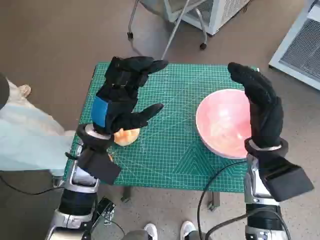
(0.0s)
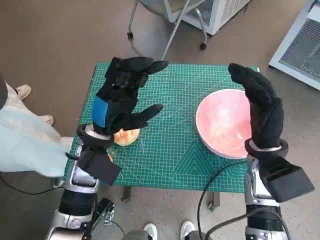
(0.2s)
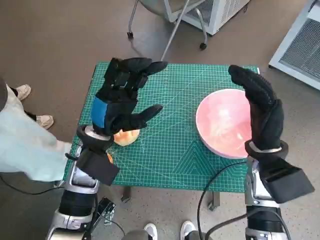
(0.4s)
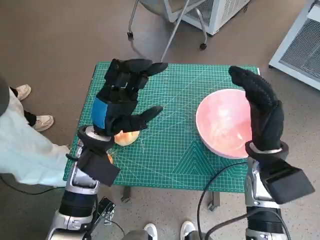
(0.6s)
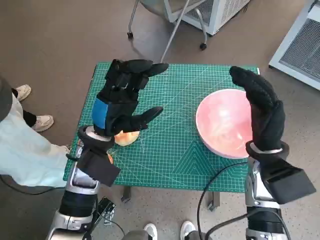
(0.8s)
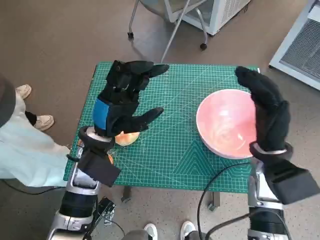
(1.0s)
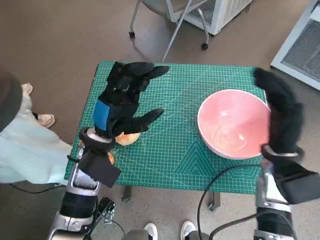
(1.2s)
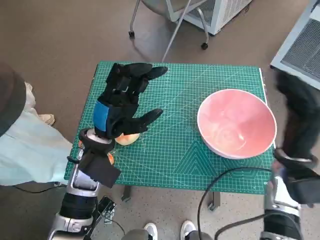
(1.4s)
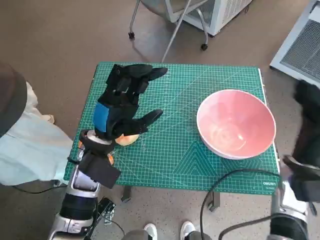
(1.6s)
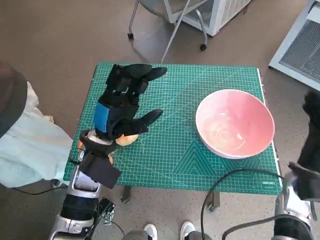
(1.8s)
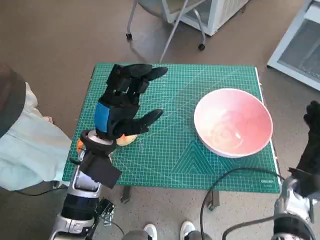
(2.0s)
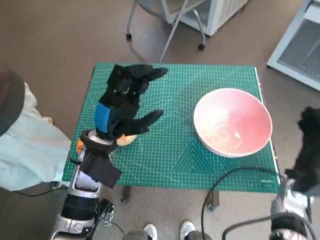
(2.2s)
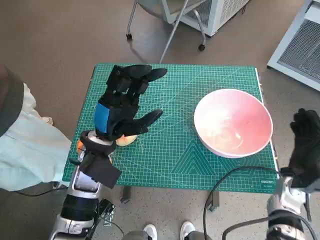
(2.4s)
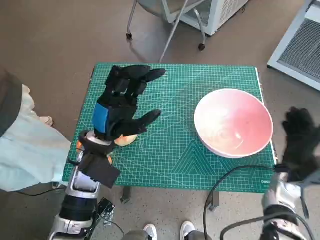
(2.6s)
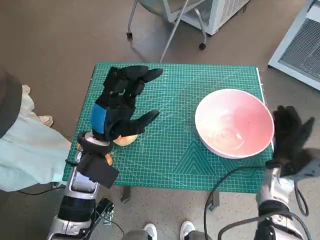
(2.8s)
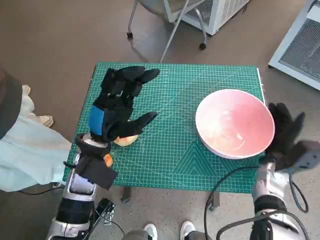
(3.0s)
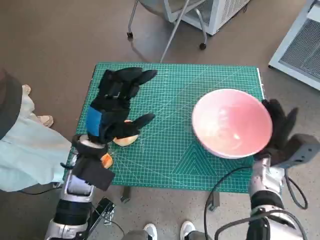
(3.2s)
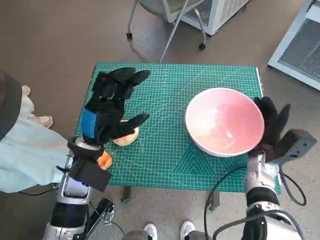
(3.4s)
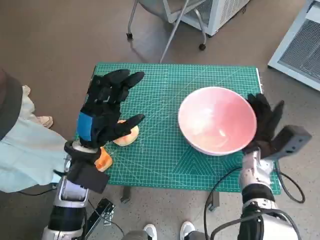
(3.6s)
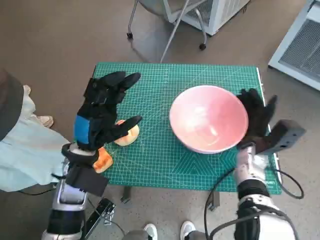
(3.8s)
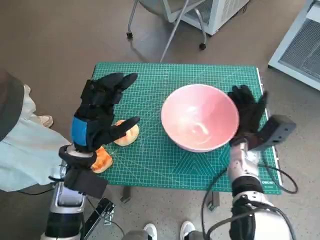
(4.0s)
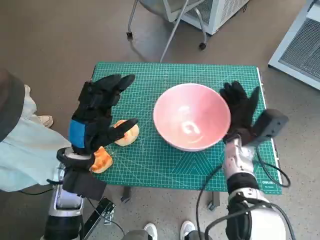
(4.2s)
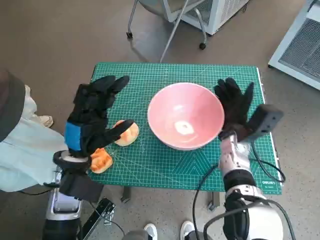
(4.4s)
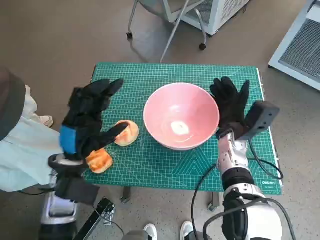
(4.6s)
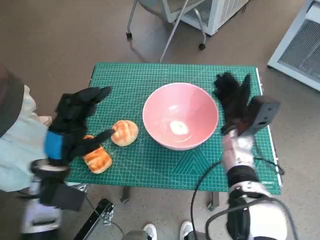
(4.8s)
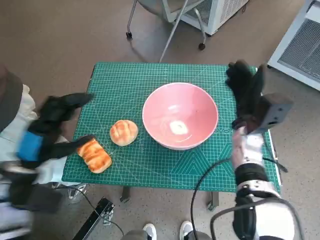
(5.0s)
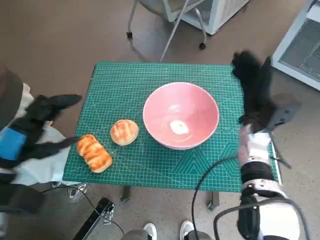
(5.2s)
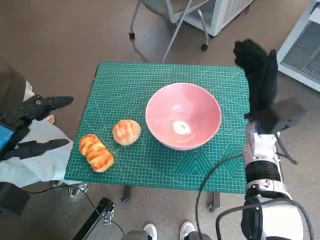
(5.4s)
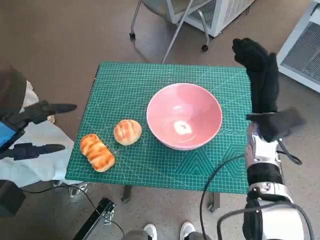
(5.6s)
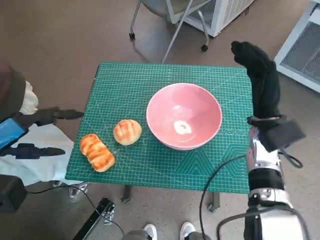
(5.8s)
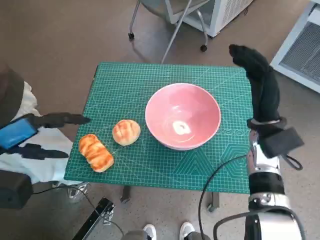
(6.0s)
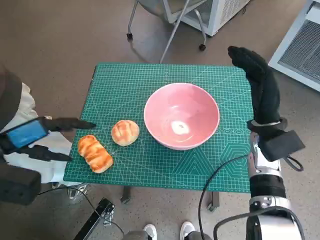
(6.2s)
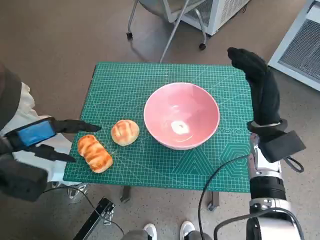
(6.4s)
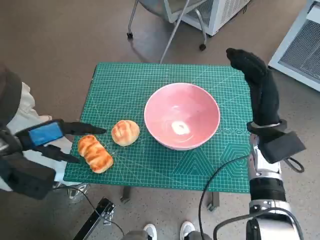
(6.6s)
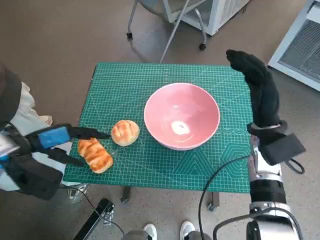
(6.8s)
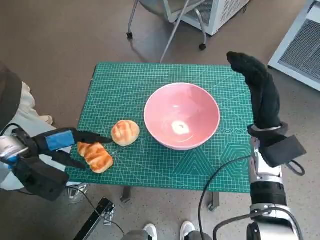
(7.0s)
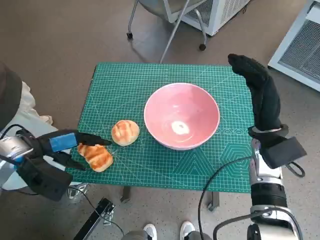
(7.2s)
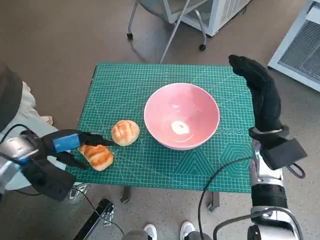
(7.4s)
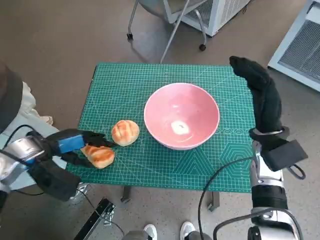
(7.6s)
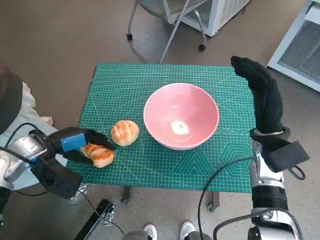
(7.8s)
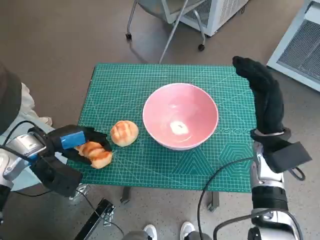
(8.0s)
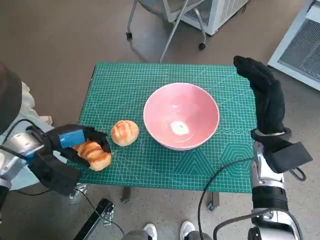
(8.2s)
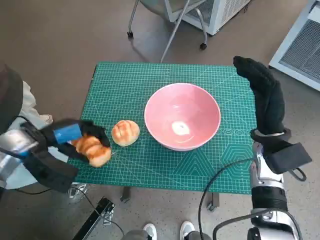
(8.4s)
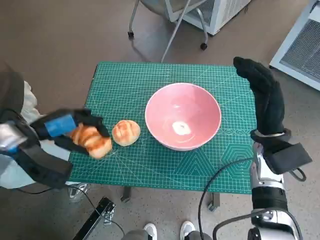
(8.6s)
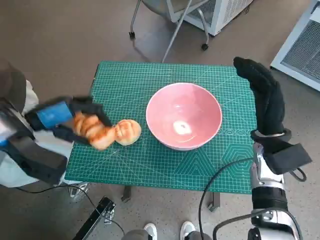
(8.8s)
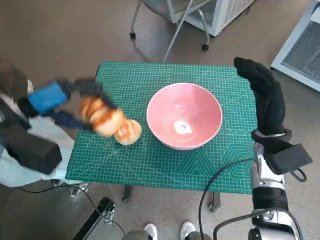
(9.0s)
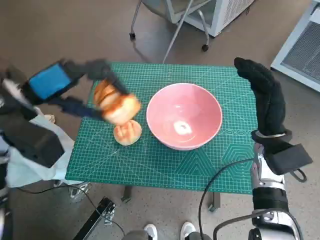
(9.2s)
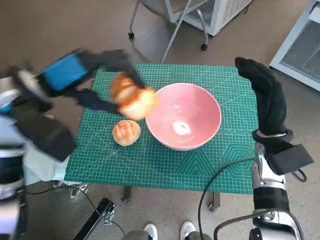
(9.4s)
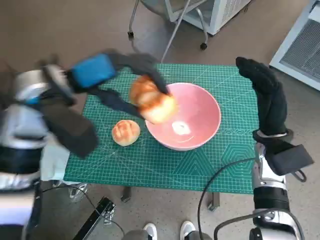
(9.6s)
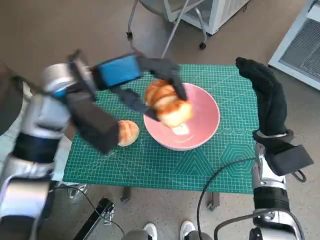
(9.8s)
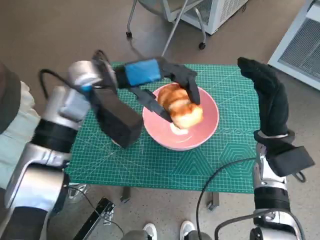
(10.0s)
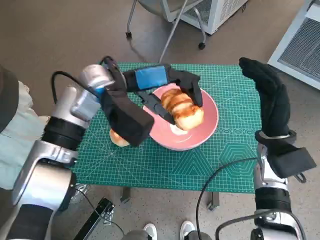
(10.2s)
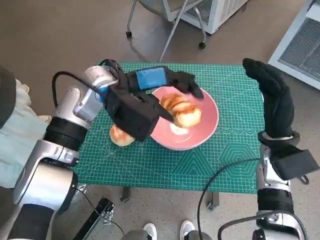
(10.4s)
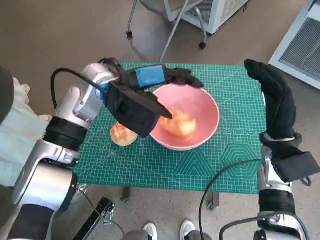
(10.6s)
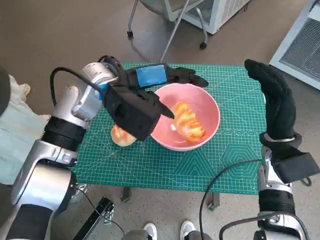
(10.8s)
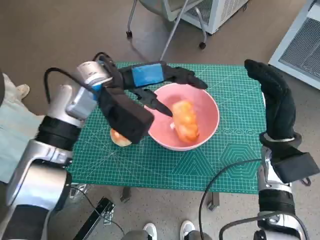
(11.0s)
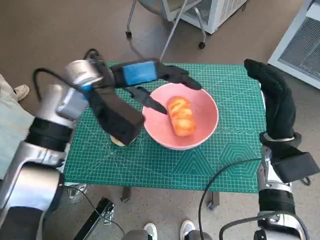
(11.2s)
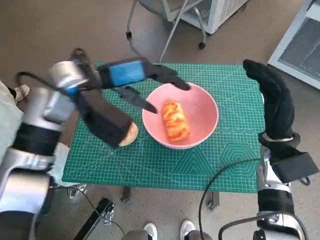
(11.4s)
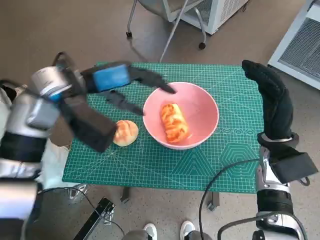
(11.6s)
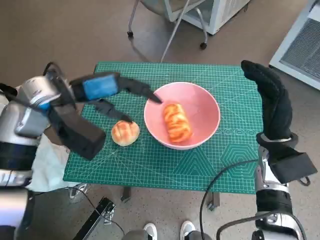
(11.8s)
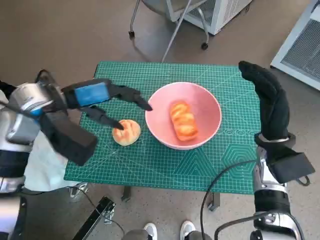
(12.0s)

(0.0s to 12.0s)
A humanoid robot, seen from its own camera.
Task of the whole recording: Push the bowl to the center of the table and put the bread into the bowl.
Step, 0.0s - 4.8s: Move the pink bowl to the center of table with right hand.
Step, 5.0s - 7.8s: Grasp the long bread with left hand.
Step, 8.0s - 11.2s: Place the long bread in pink bowl with left hand.
1.6s - 3.0s: The right hand goes about 5 cm downward.
3.0s - 4.4s: The right hand travels to the left by some 10 cm.
4.4s - 6.0s: The left hand shifts roughly 15 cm to the left and upward; the right hand goes approximately 5 cm upward.
6.0s - 7.6s: The left hand shifts some 10 cm downward and forward.
7.6s - 9.0s: The left hand shifts approximately 10 cm upward.
9.0s - 10.4s: The left hand goes roughly 15 cm to the right and forward.
10.4s - 12.0s: The left hand goes approximately 10 cm to the left.

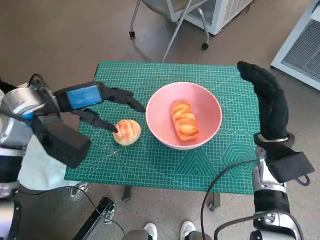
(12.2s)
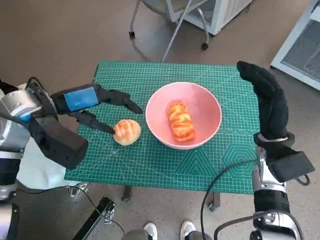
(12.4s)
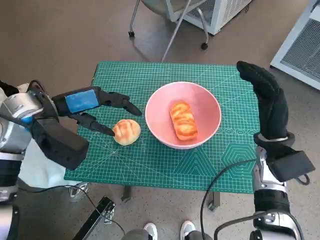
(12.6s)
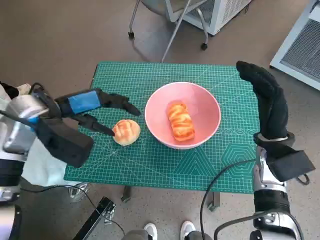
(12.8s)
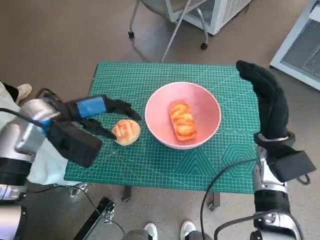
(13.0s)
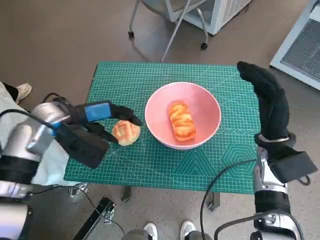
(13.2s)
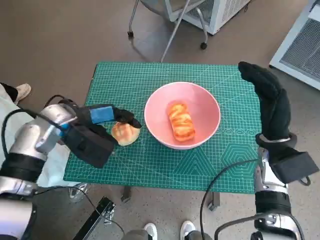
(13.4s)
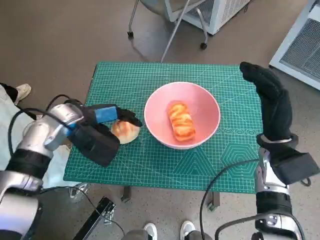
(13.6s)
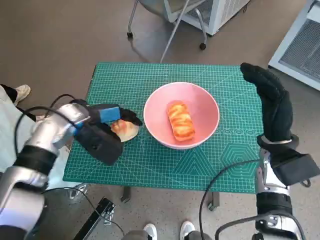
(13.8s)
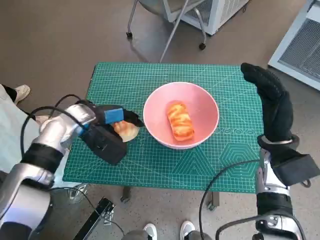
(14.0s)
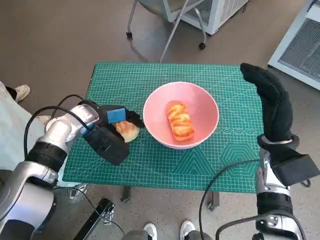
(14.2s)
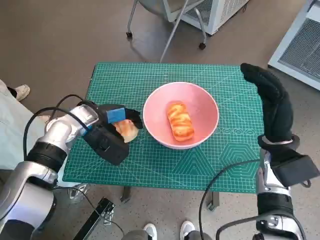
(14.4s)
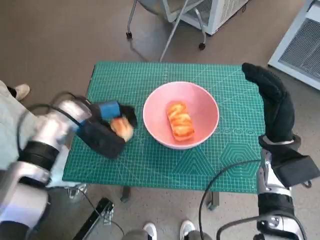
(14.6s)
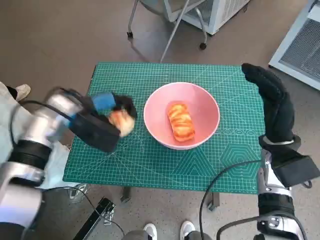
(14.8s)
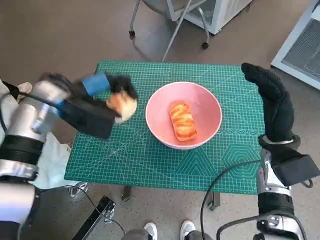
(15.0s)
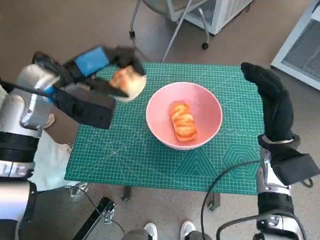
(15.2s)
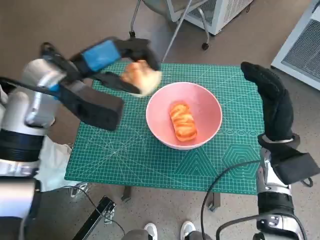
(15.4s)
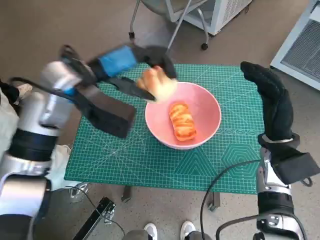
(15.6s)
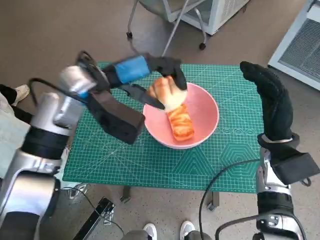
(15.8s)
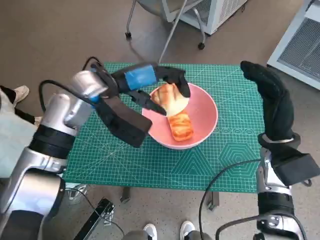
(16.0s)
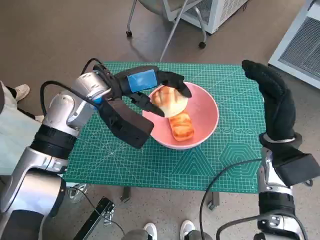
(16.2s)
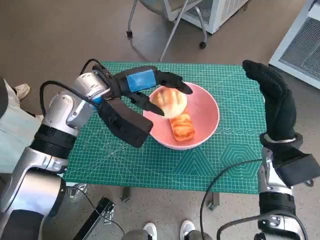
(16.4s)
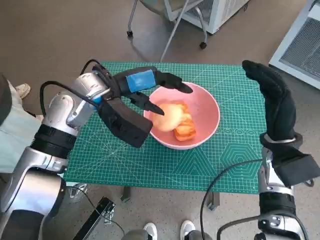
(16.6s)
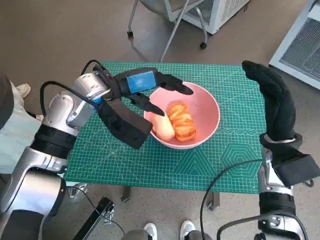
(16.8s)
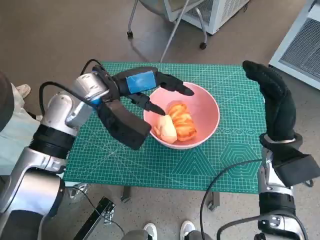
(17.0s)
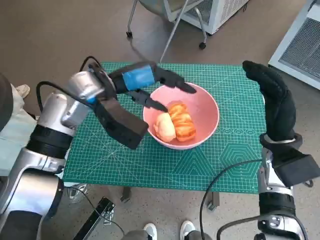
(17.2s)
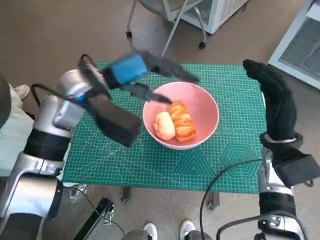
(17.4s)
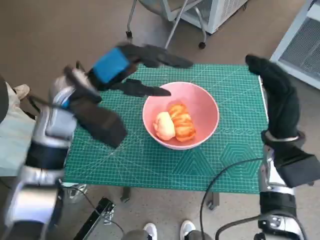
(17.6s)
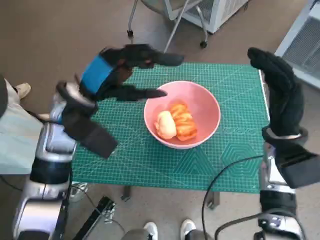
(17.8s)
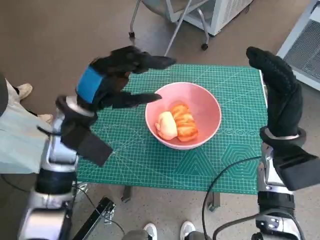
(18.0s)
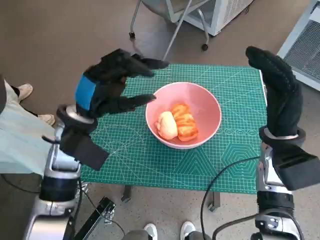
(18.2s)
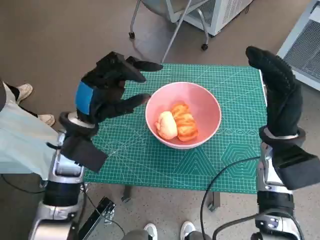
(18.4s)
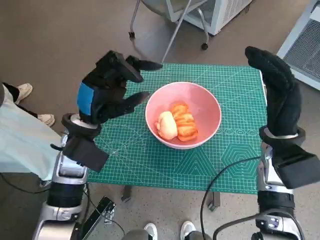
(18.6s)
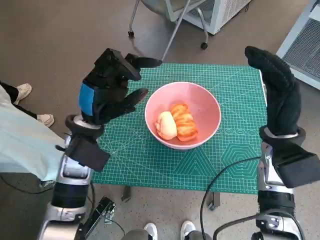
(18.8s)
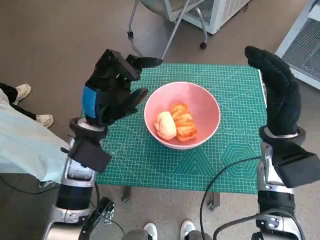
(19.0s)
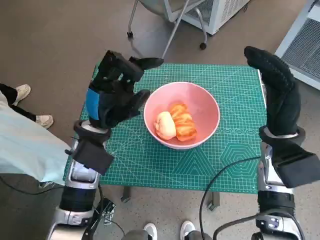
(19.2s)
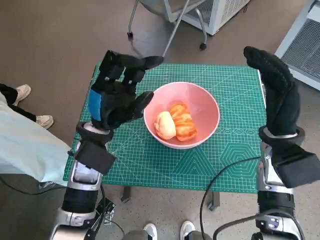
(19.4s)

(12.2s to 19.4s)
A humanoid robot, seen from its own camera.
Task of the whole recording: Push the bowl to the center of the table and put the bread into the bowl.
Step, 12.2s - 14.4s: Grasp the round bread with left hand.
Step, 14.8s - 17.0s: Place the round bread in pink bowl with left hand.
12.2s - 13.6s: The left hand heads downward, covering approximately 10 cm.
15.0s - 16.6s: The left hand heads to the right, covering some 10 cm.
16.6s - 18.0s: The left hand ends up about 5 cm from where it was.
18.0s - 19.4s: The left hand travels downward by approximately 5 cm.

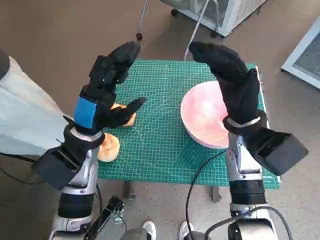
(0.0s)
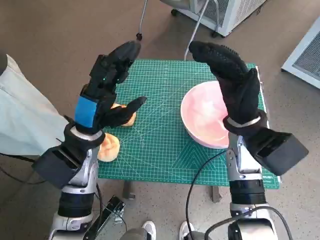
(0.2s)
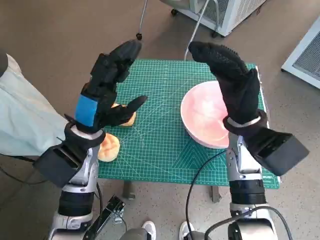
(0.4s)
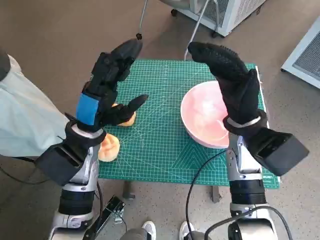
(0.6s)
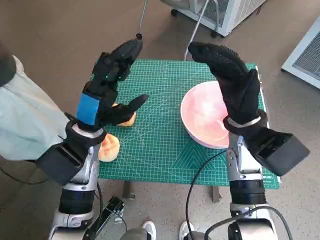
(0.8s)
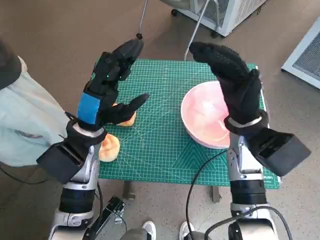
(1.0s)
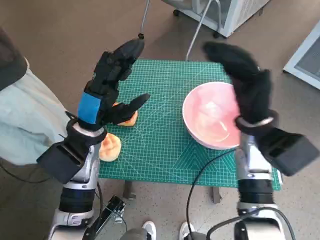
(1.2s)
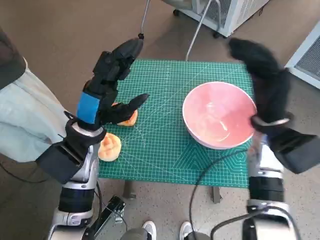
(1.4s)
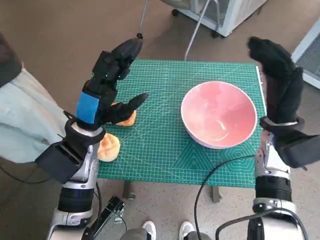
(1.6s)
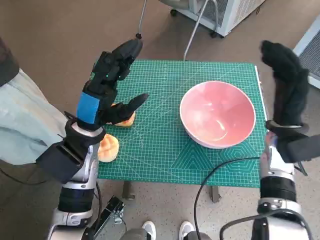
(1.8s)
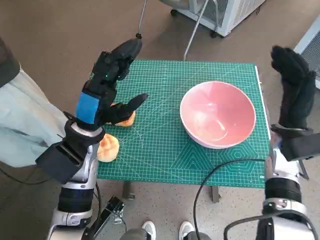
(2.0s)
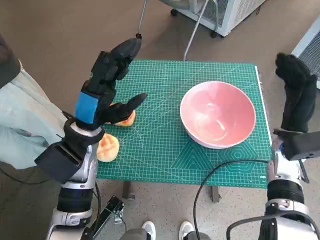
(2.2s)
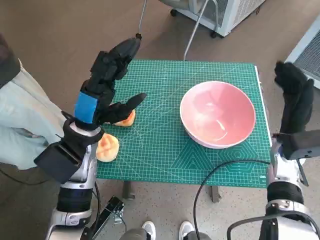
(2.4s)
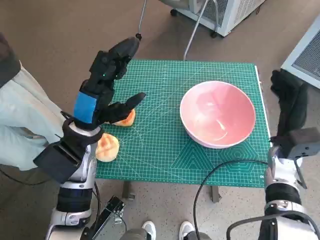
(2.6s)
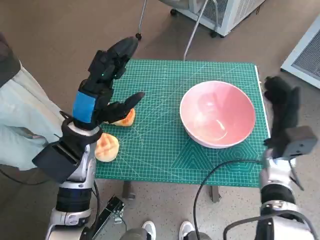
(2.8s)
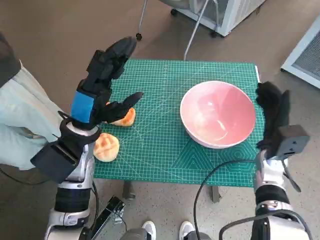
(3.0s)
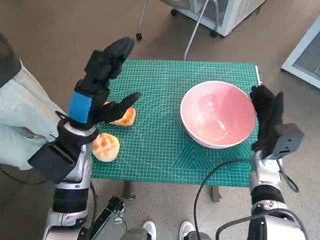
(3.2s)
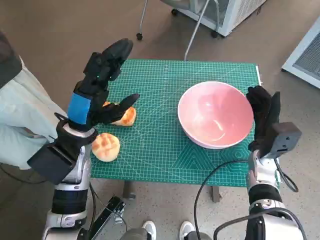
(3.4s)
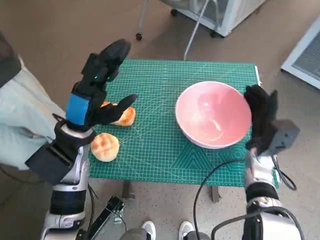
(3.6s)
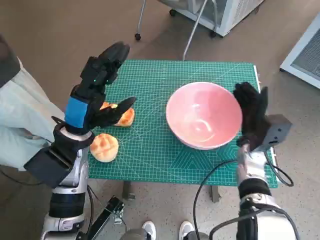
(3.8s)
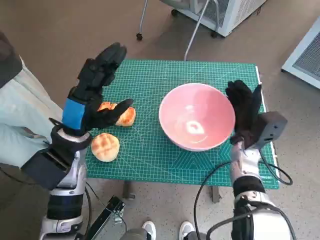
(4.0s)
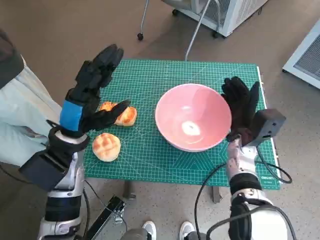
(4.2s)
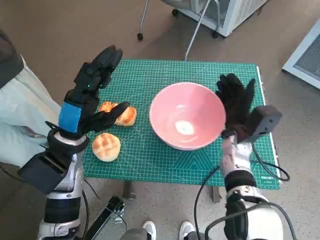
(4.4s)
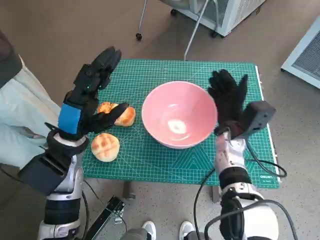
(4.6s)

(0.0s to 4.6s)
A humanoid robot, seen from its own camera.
Task of the whole recording: Push the bowl to the center of the table and put the bread into the bowl.
1.6s - 3.0s: The right hand shifts approximately 10 cm downward.
3.0s - 4.6s: The right hand moves to the left, some 10 cm.
